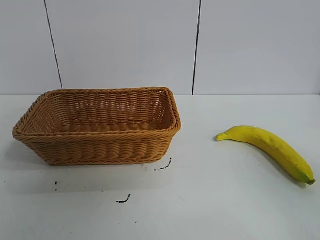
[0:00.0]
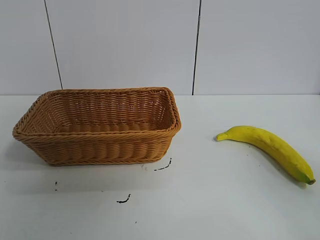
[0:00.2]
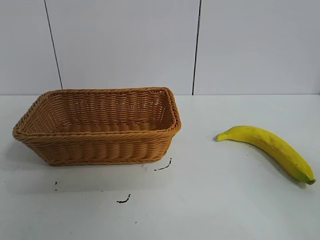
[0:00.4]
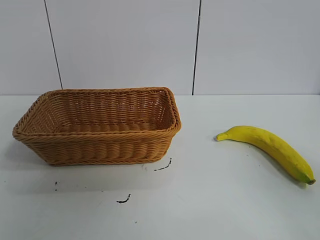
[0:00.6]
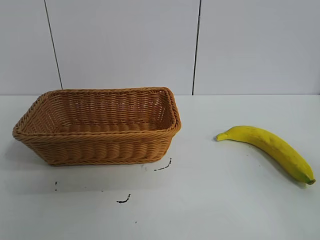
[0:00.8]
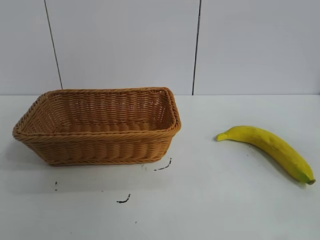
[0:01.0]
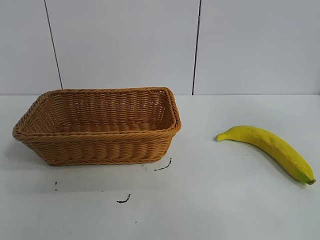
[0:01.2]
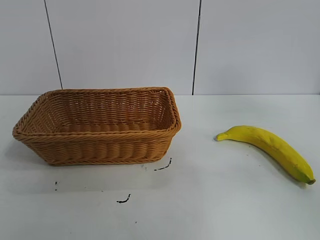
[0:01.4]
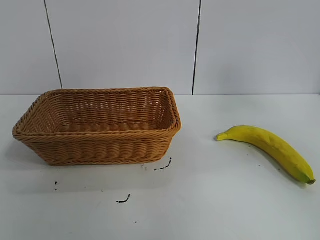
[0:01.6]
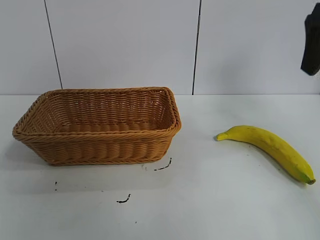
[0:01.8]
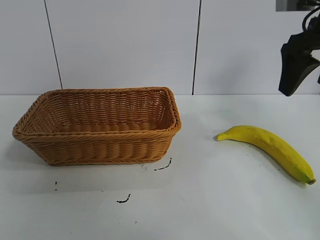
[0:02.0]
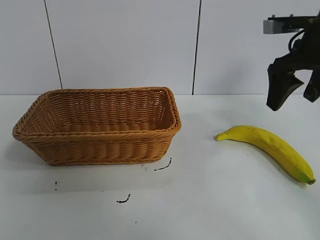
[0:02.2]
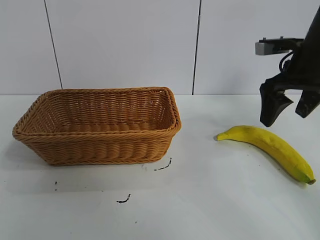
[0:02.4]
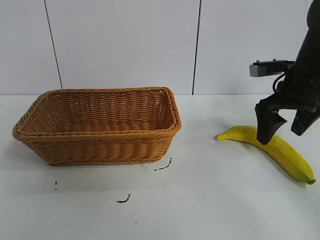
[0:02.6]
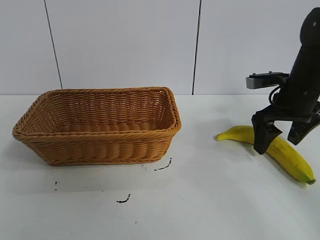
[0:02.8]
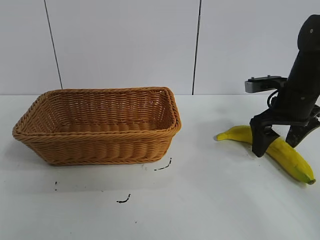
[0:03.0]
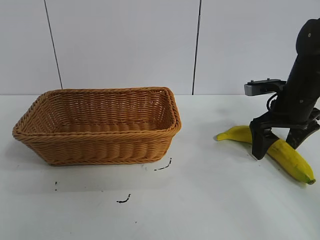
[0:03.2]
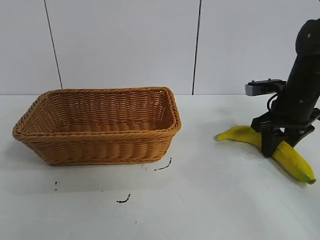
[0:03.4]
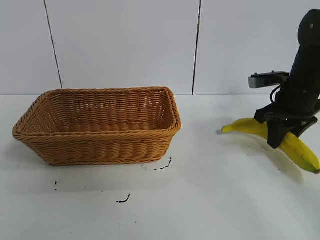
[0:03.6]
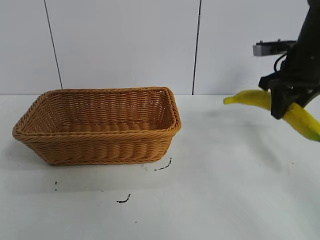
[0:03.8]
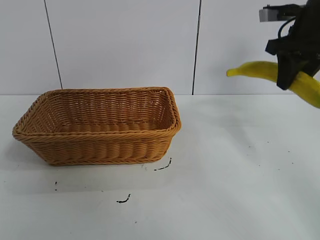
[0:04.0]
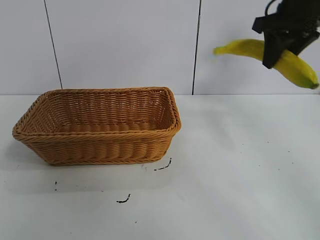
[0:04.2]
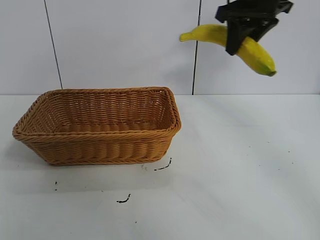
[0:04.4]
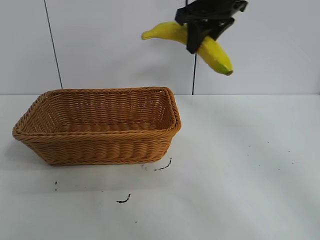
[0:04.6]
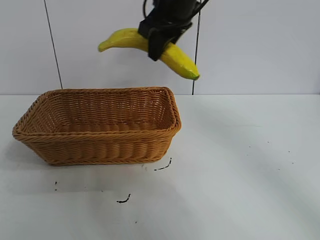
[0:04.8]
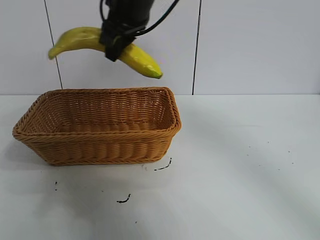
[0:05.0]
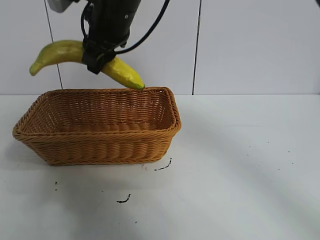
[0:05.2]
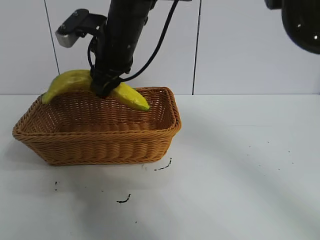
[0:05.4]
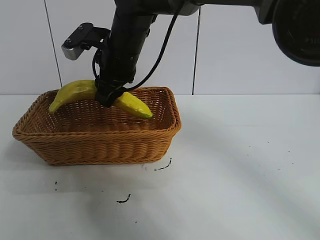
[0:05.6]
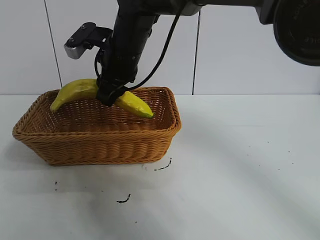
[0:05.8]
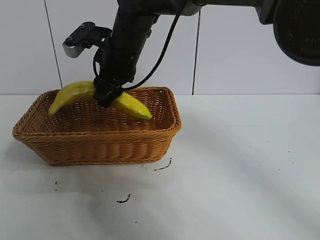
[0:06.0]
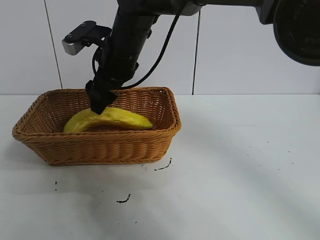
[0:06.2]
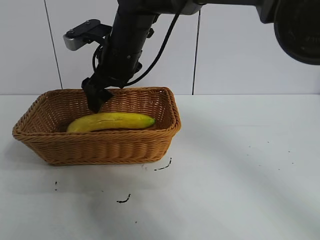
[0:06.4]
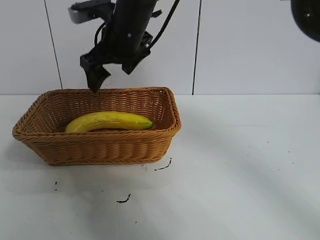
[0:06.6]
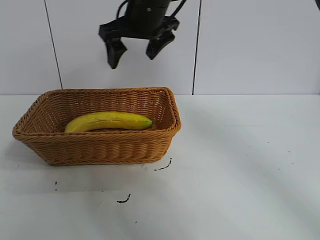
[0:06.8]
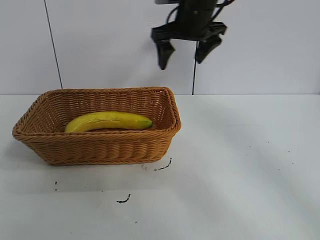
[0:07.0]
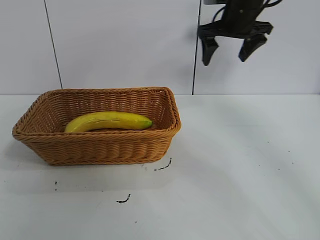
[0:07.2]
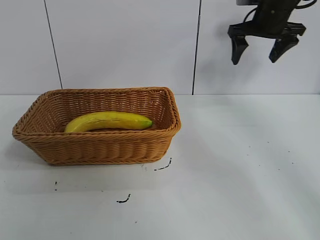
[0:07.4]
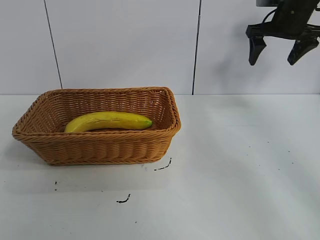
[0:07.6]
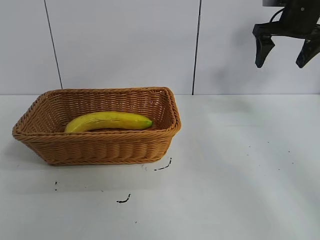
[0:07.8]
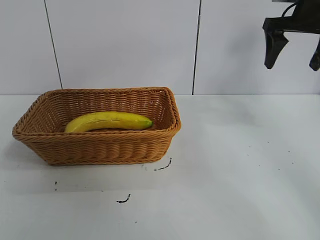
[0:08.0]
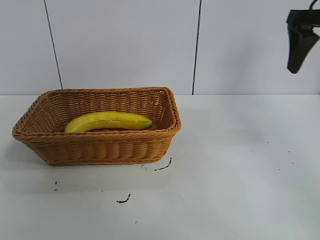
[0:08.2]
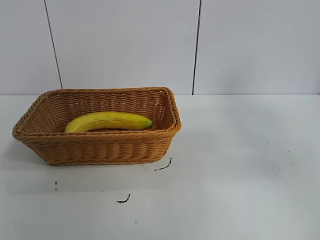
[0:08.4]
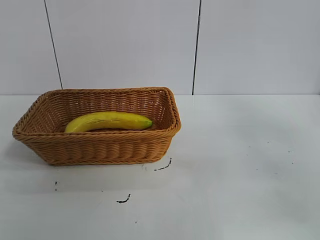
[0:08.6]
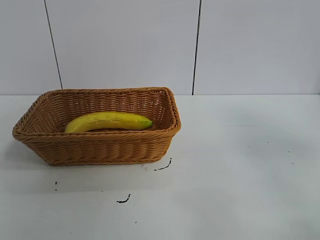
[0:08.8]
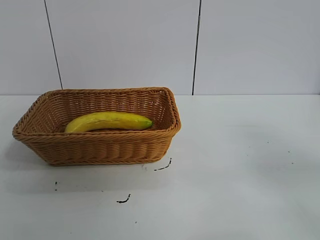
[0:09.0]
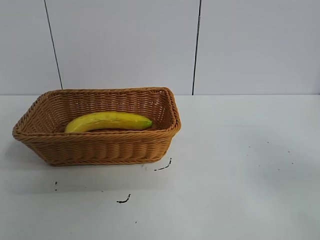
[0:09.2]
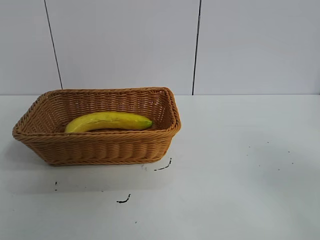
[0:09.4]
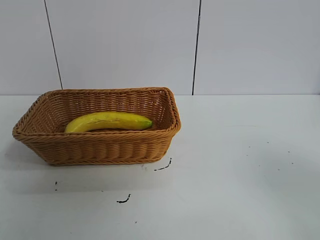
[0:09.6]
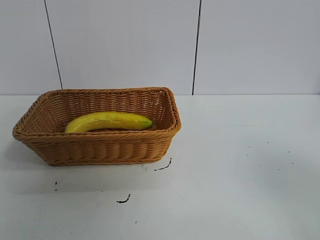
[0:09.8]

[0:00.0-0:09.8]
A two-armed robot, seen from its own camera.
Task of the whole recording: pick up the banana and put it into the basket.
Step, 0:00.8 to 0:03.4: Grasp the banana with right gripper.
Step, 0:03.6 to 0:06.2: Place the banana in the basket with right gripper.
